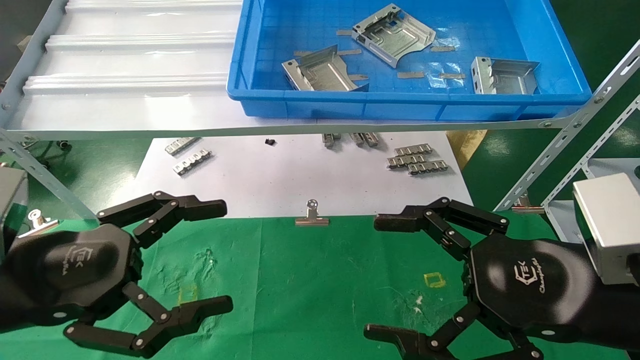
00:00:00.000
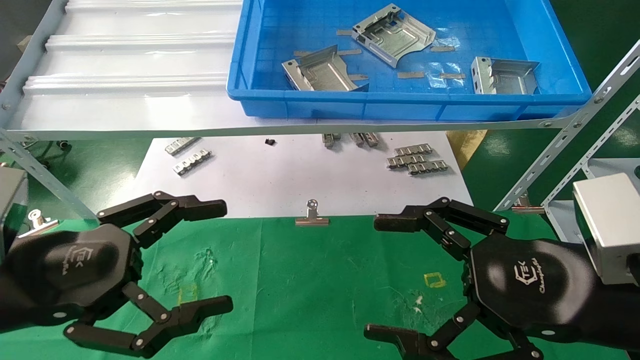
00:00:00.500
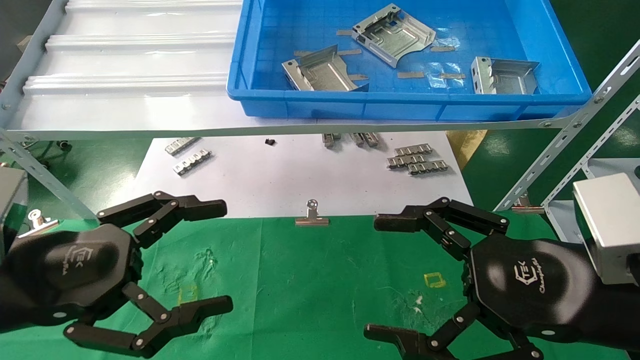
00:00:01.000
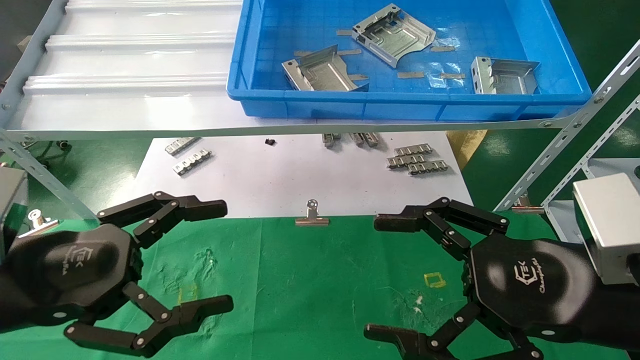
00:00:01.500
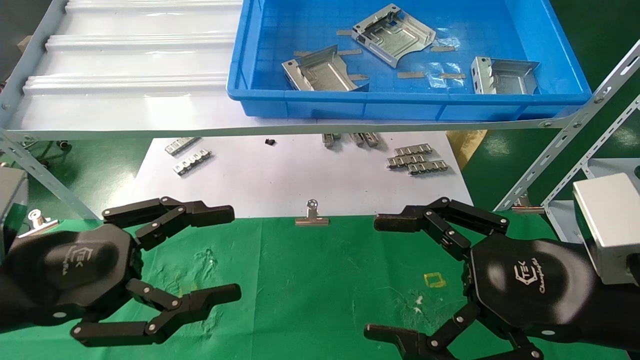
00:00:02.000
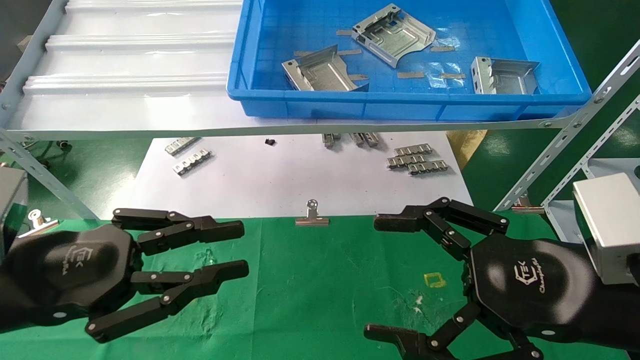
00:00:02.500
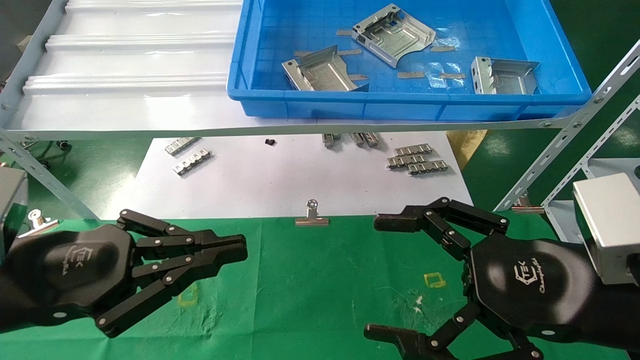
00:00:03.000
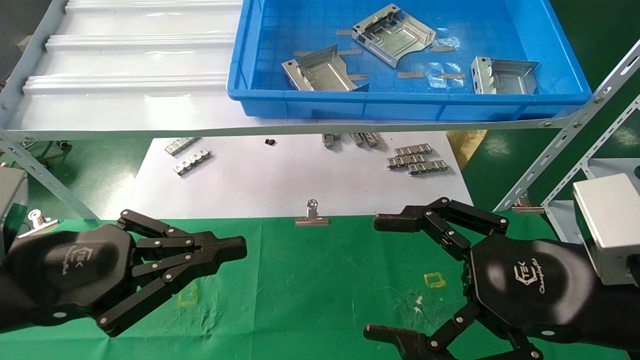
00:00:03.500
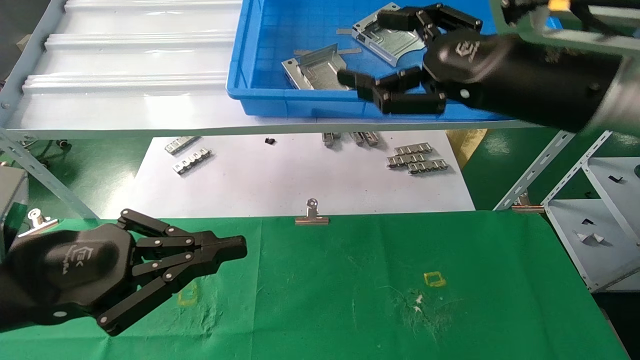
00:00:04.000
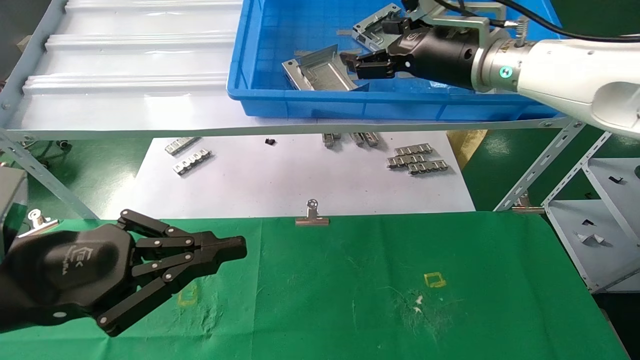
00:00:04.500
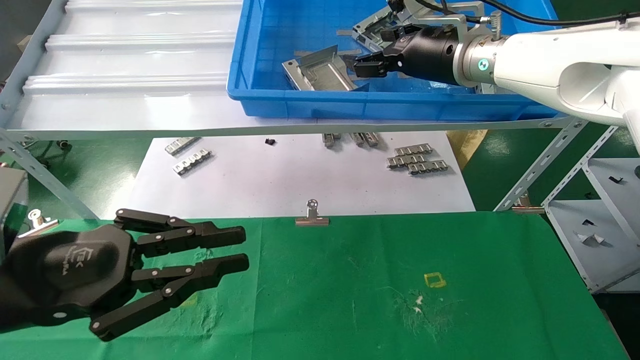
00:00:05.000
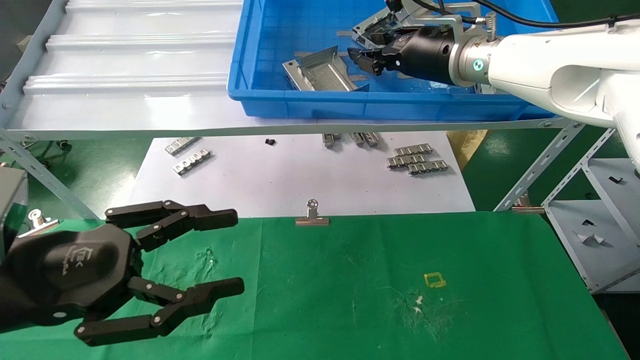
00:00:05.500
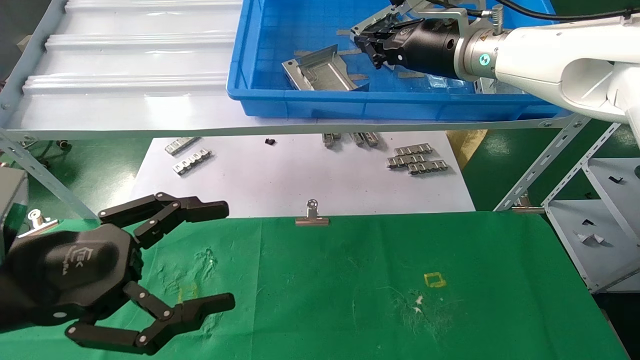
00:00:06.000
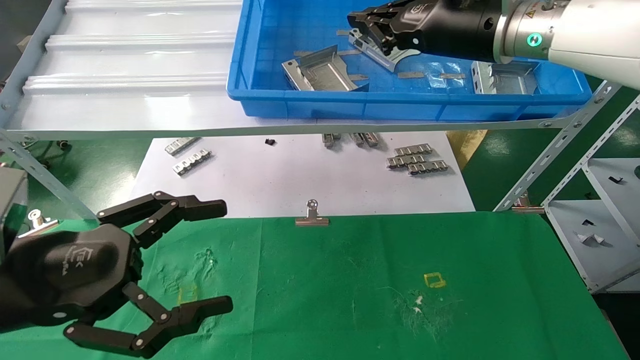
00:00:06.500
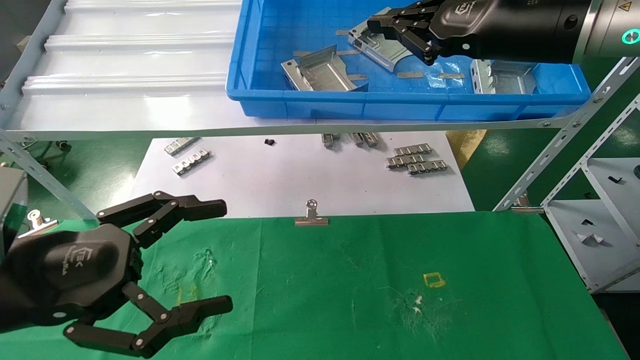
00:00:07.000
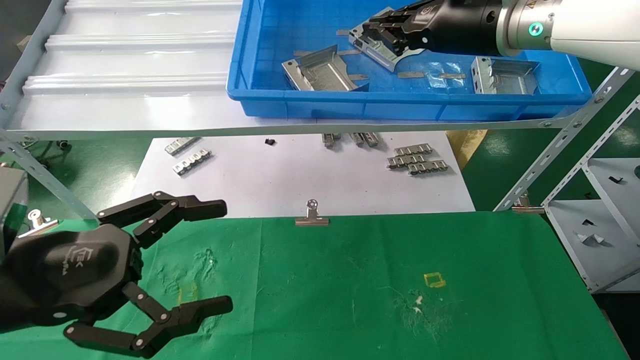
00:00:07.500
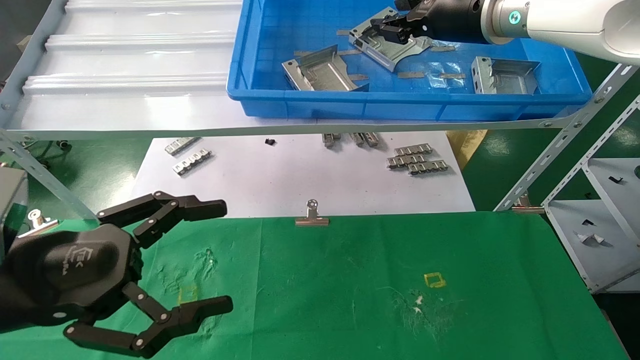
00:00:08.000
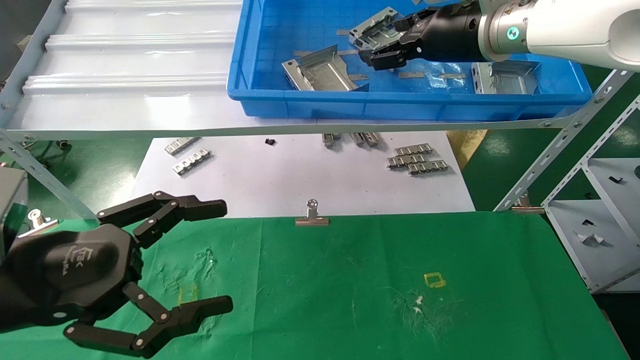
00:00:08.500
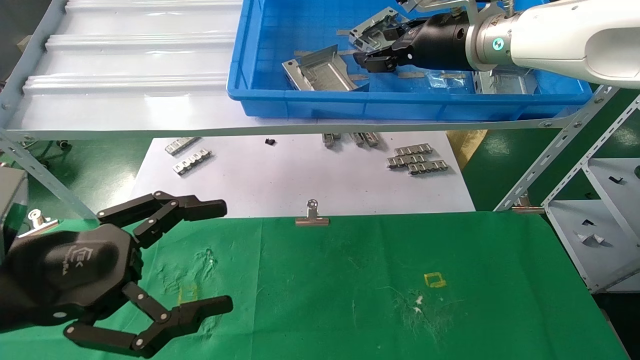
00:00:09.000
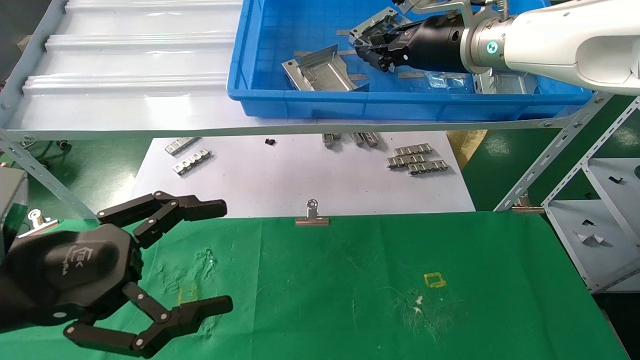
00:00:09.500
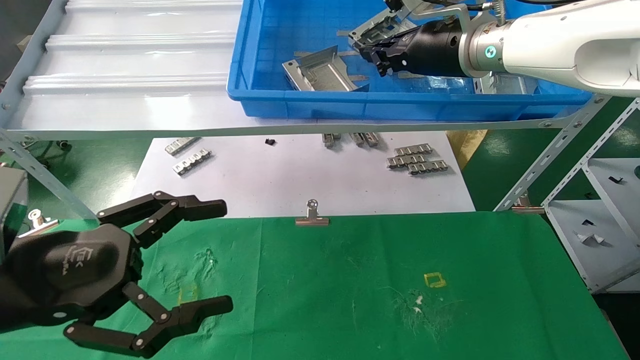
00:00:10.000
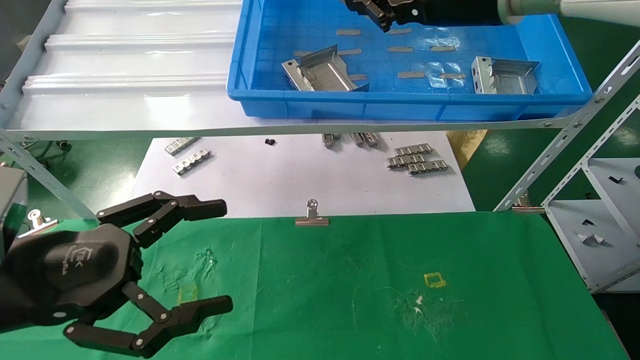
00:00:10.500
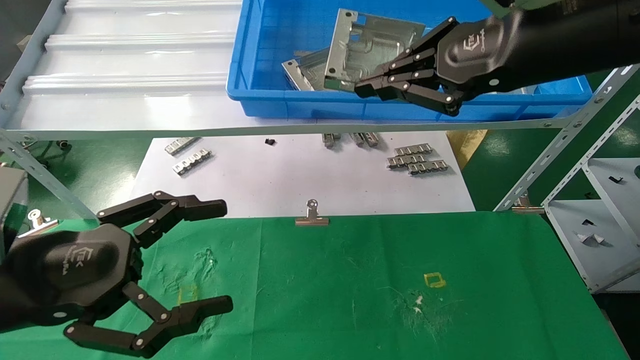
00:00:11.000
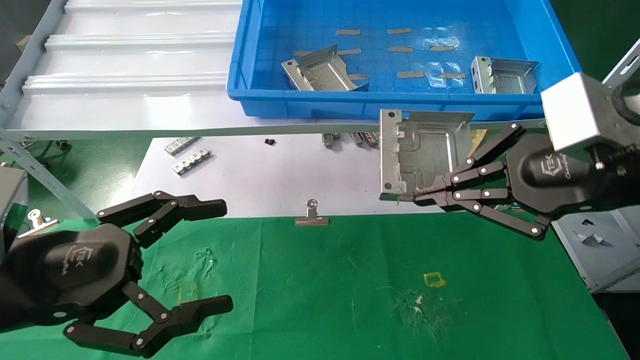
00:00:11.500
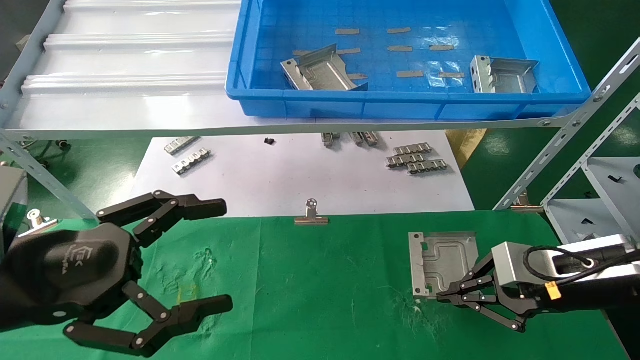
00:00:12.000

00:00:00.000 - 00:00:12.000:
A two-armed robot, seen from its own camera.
Task of the whole recording: use the mechanical arm to pick up the parts and place them on the table.
Step, 00:00:02.000 - 00:00:11.000: Pick up the hard drive bracket from the feeding area.
00:00:00.000 - 00:00:02.000: The two grippers keep their place.
00:00:02.000 - 00:00:04.000: The left gripper closes up. Meanwhile the right gripper is displaced upward and forward by approximately 20 cm.
00:00:04.000 - 00:00:06.000: The right gripper shifts about 15 cm forward, and closes, while the left gripper opens its fingers.
00:00:06.000 - 00:00:08.000: The right gripper goes backward and returns, approximately 10 cm each way.
00:00:08.000 - 00:00:10.000: The right gripper opens, then closes once more.
00:00:10.000 - 00:00:12.000: The right gripper moves downward, to the right and backward, about 30 cm.

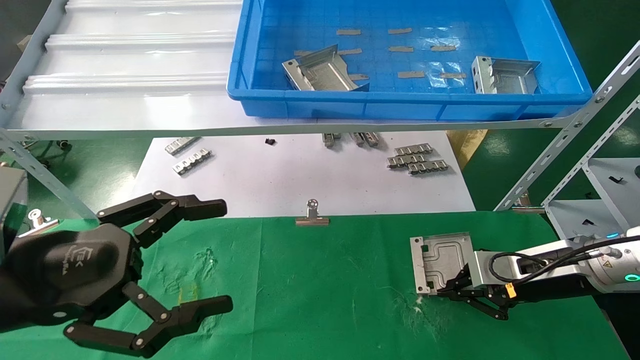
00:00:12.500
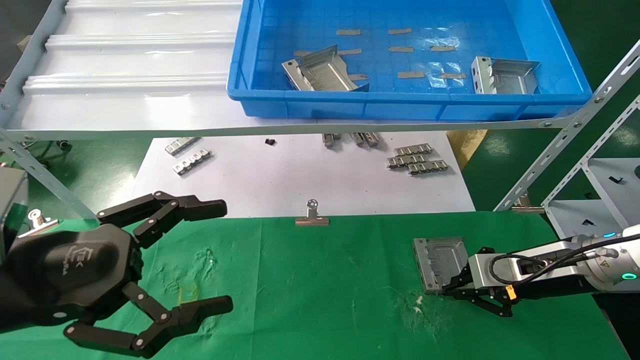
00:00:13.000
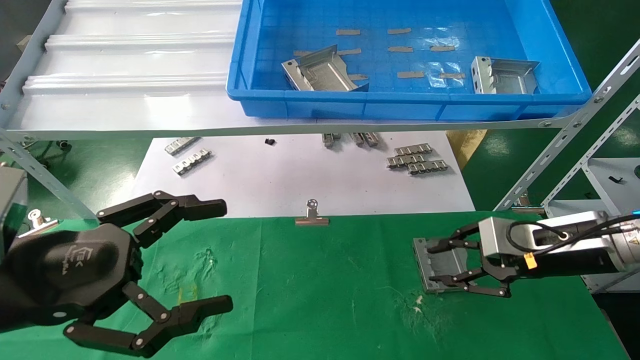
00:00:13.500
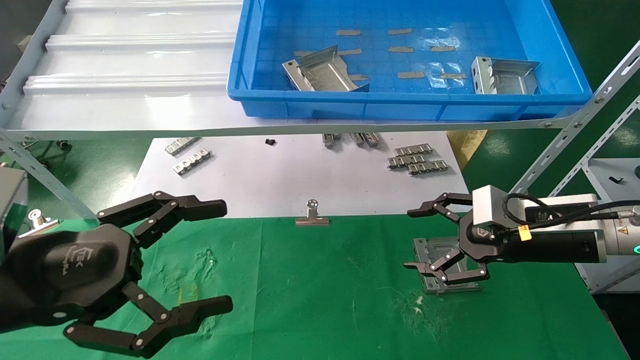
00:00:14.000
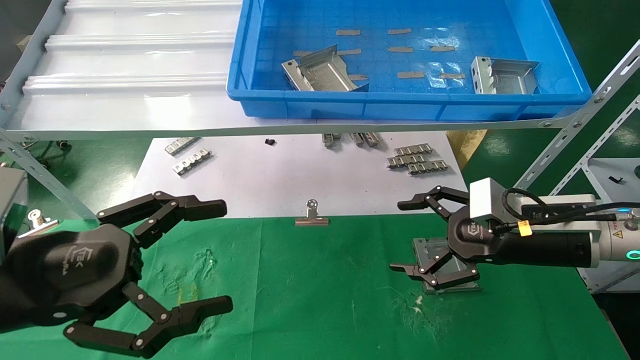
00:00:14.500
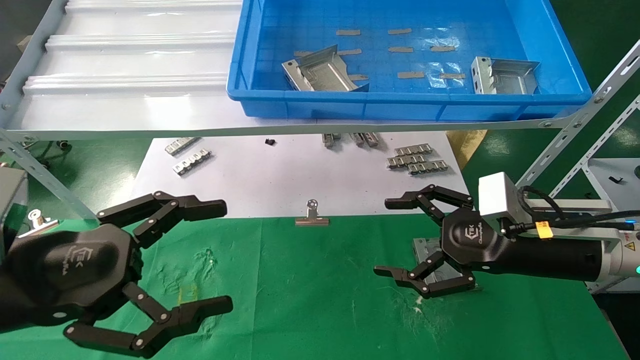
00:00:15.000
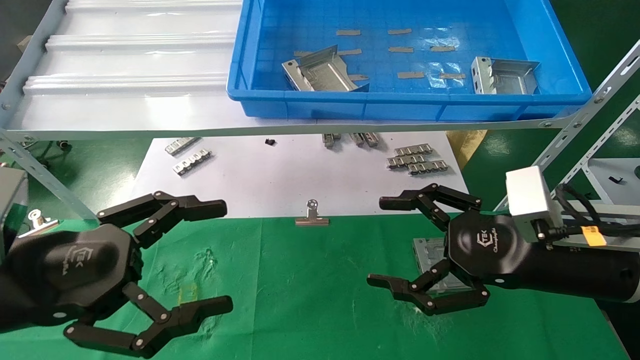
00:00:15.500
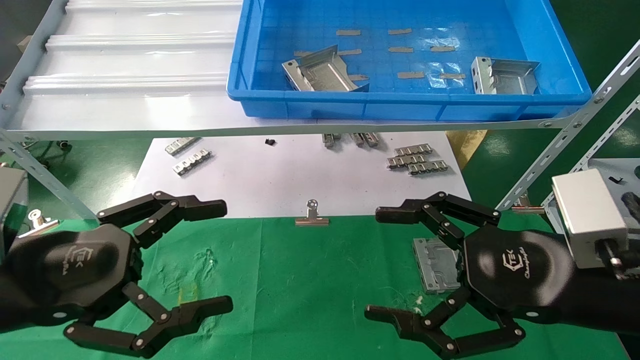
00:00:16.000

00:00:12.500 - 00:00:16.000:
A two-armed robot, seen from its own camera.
Task of the whole recording: use the mechanical arm to pick up the parts and place them on the table.
Step, 00:00:12.500 - 00:00:14.000: Place the hard drive bracket into the box.
00:00:12.500 - 00:00:14.500: The right gripper changes place by roughly 5 cm, and opens.
00:00:14.500 - 00:00:16.000: The right gripper heads backward, covering approximately 10 cm.
